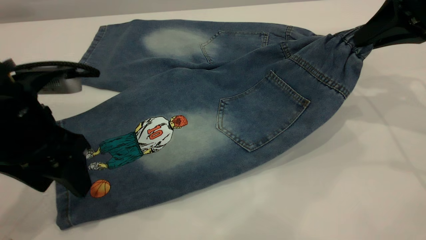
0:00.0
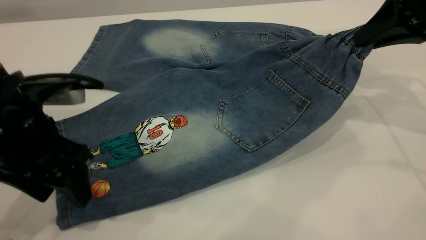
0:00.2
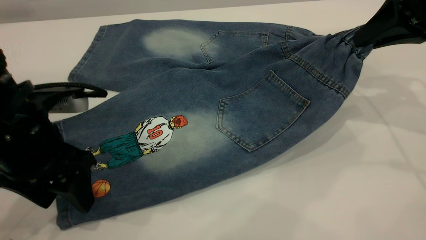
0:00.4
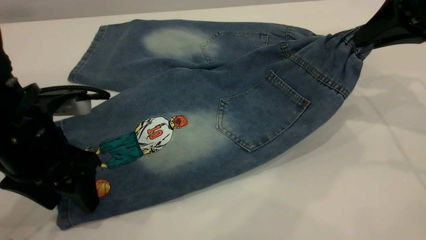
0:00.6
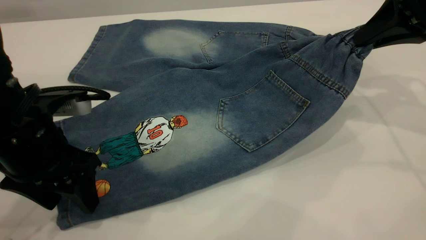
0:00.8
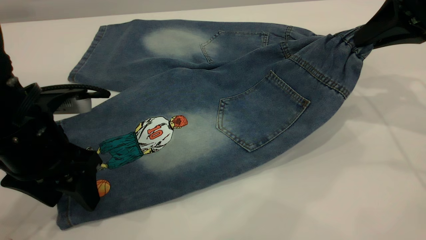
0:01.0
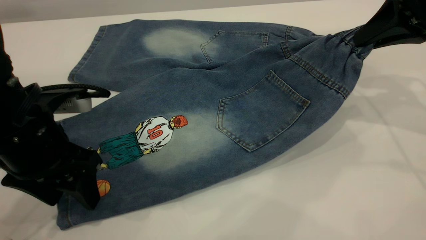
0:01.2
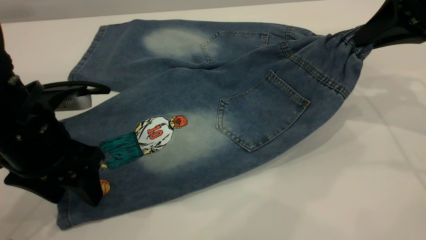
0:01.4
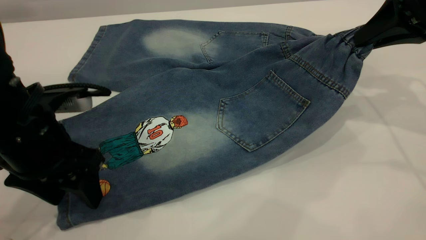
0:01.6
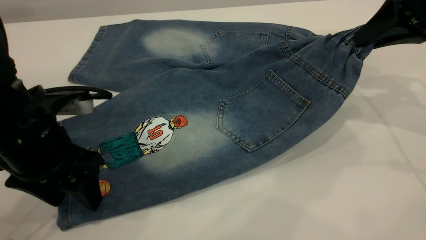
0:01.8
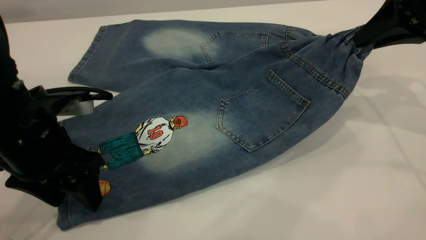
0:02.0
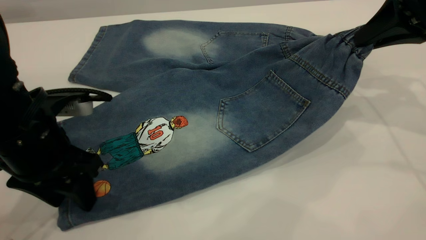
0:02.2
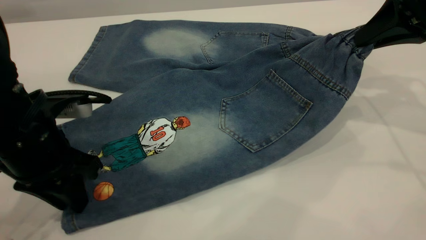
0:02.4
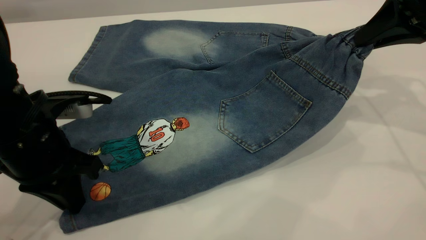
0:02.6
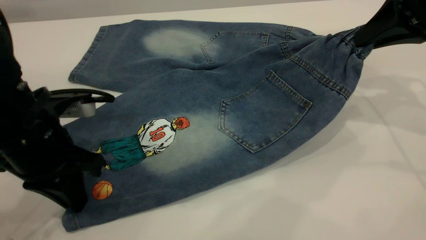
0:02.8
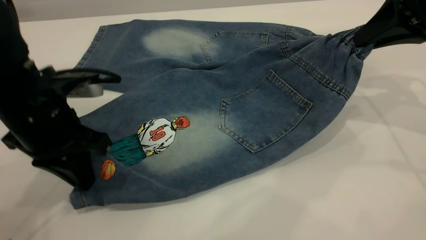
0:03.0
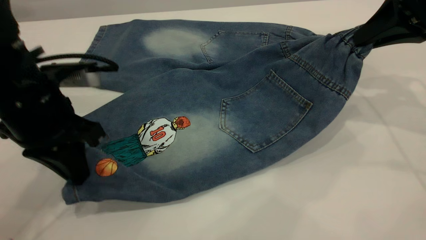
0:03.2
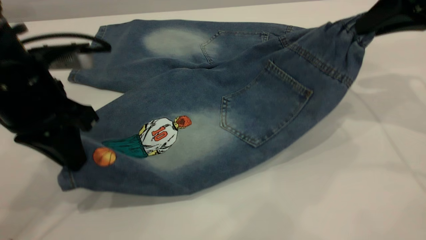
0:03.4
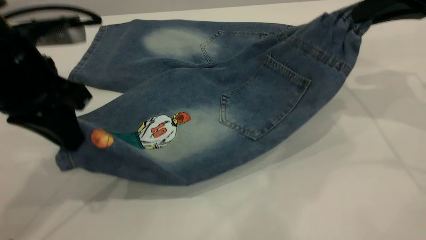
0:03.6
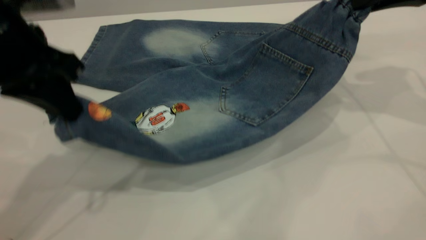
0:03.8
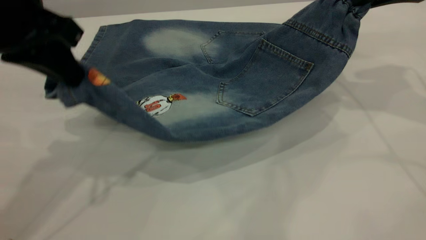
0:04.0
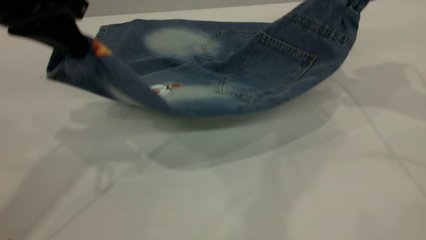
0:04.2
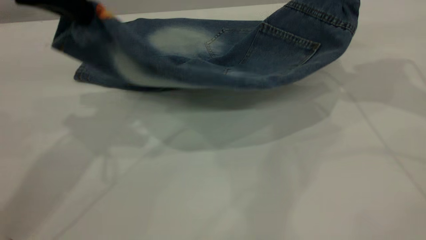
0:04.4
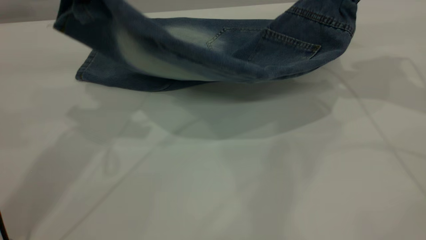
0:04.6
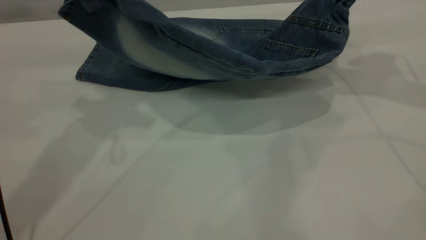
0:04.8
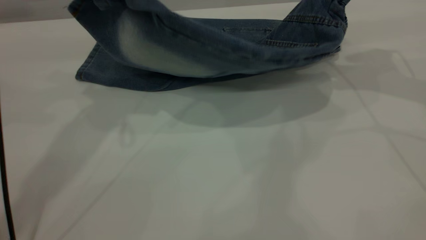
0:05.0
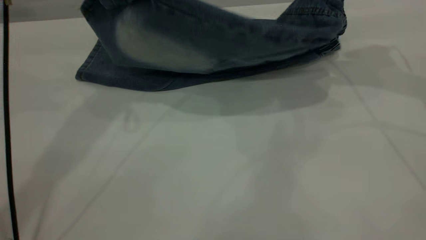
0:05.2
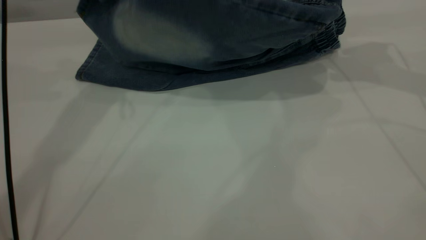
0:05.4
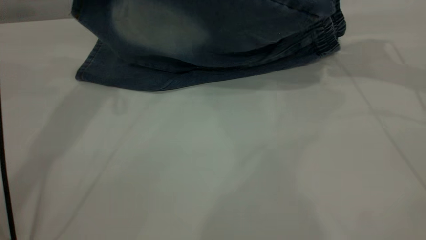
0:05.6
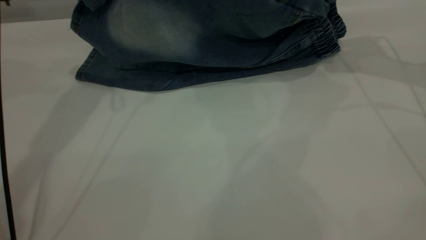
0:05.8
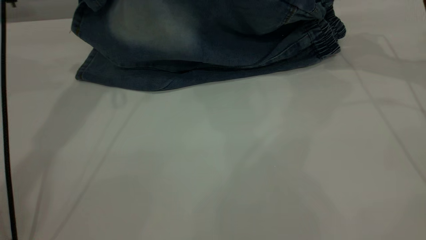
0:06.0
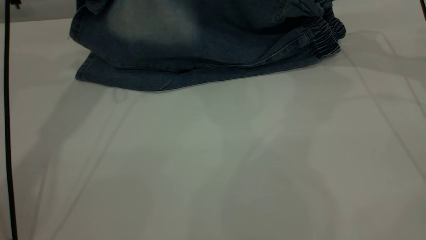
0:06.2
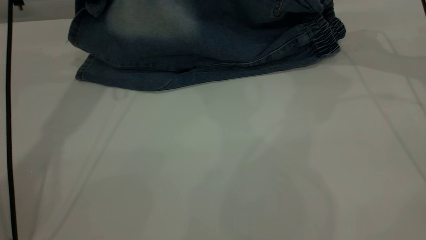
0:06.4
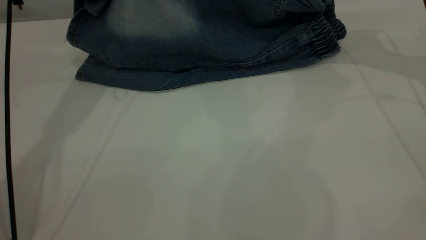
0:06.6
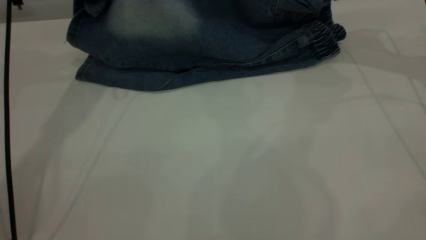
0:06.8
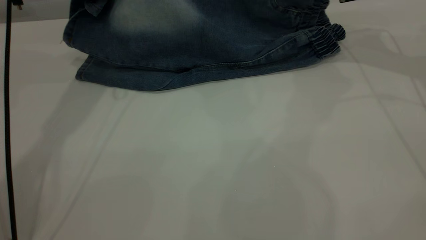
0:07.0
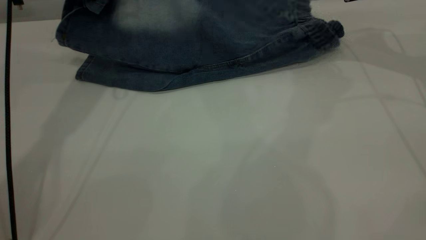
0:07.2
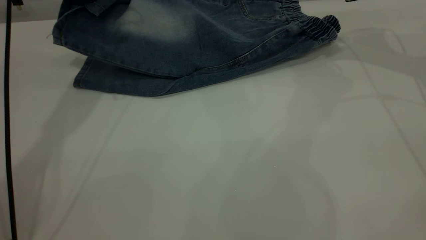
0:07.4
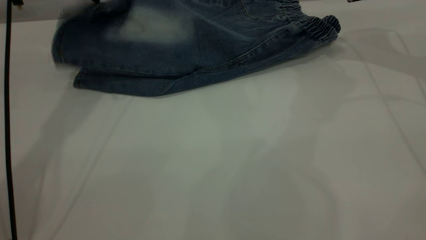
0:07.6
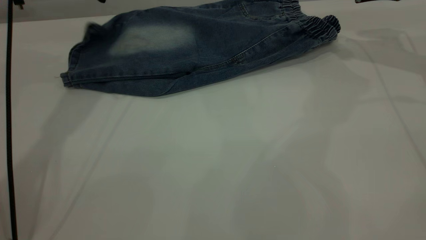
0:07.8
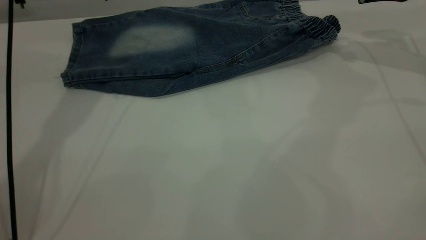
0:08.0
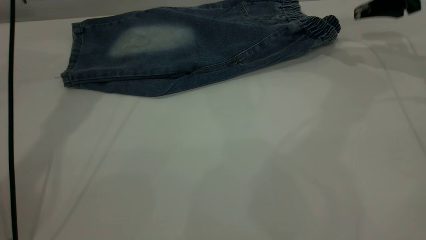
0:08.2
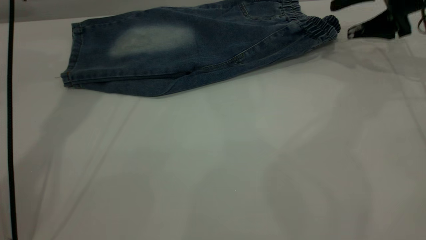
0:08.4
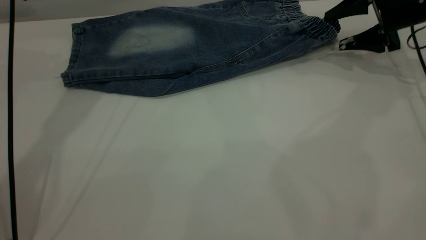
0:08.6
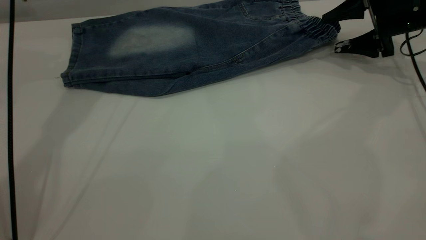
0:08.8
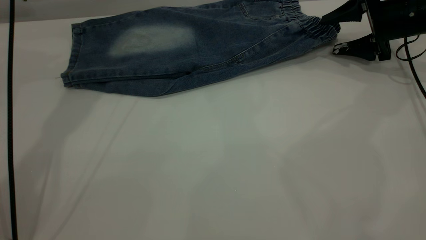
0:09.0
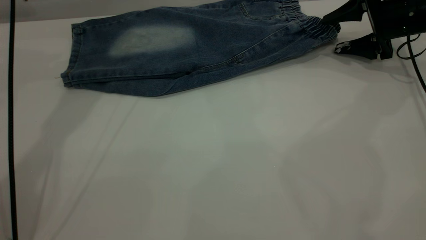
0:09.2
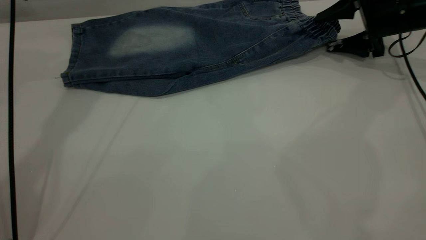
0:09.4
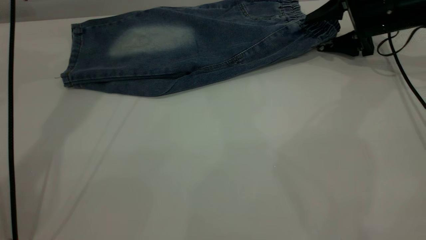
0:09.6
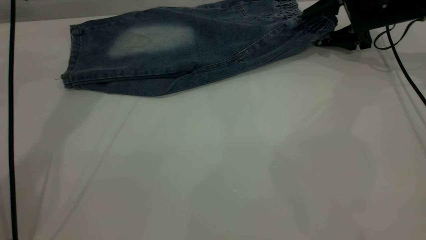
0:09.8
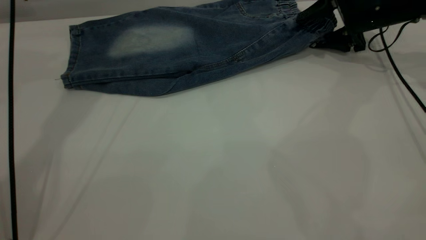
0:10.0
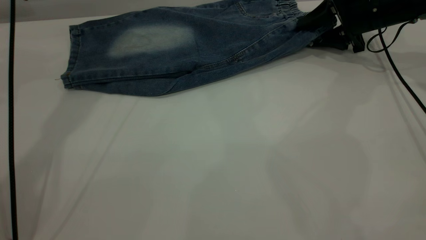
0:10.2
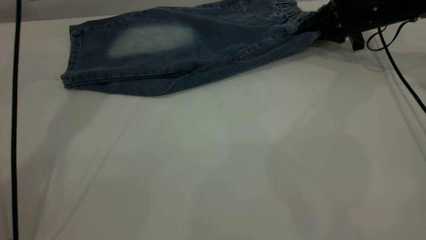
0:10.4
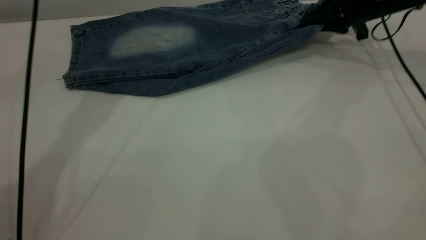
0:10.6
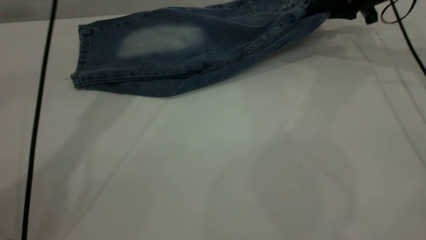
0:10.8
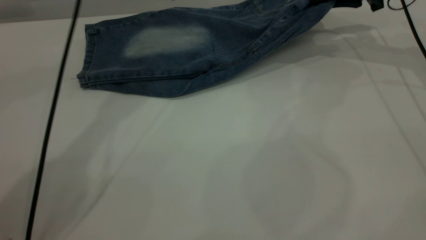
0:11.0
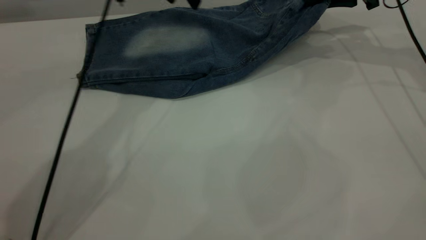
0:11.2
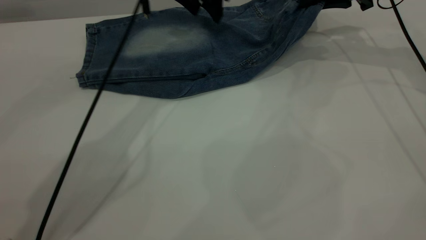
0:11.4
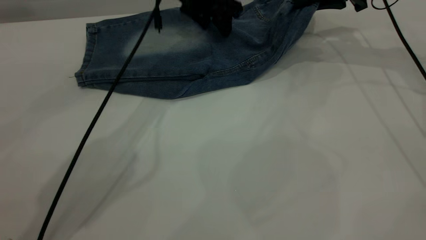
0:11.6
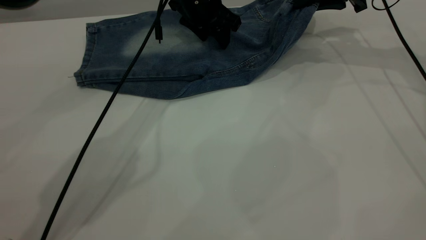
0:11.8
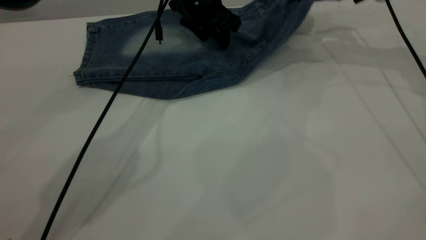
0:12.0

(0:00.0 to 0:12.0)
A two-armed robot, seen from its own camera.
Step, 0:00.0 - 0:07.8: Fold the bottom of the pants upward.
0:00.0 - 0:01.6: The grippers move only a little.
0:01.6 - 0:03.0: The left gripper closes.
0:03.0 - 0:04.4: The right gripper shifts approximately 5 cm upward. The left gripper travels upward by roughly 15 cm.
0:04.4 - 0:06.0: The right gripper heads forward and downward, covering some 10 cm. Meanwhile the left gripper travels forward by about 15 cm.
0:06.0 - 0:07.6: The right gripper opens; the left gripper opens.
0:07.6 - 0:09.0: The left gripper opens its fingers; the right gripper is displaced downward by roughly 10 cm.
0:09.0 - 0:10.4: The right gripper shifts by some 5 cm, and closes up.
0:10.4 - 0:12.0: The right gripper goes about 10 cm upward, while the left gripper is displaced to the right and downward by about 20 cm.

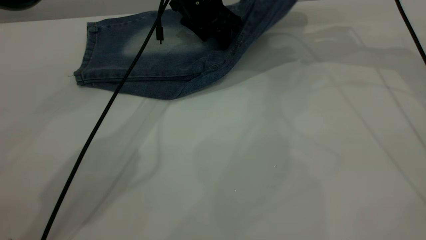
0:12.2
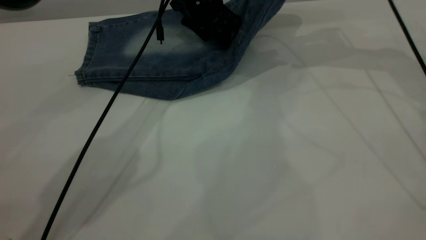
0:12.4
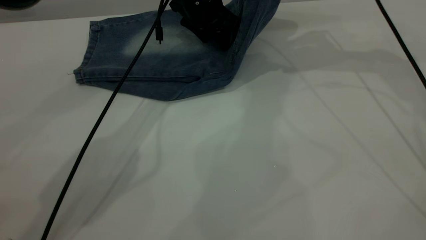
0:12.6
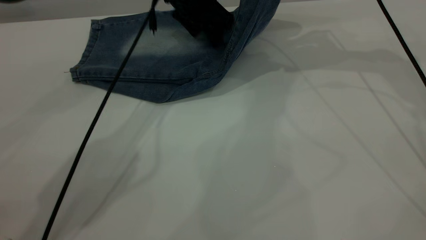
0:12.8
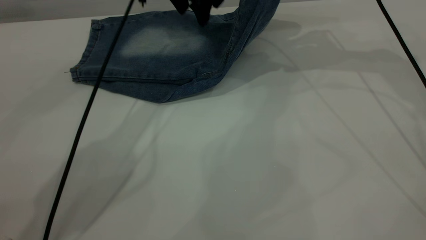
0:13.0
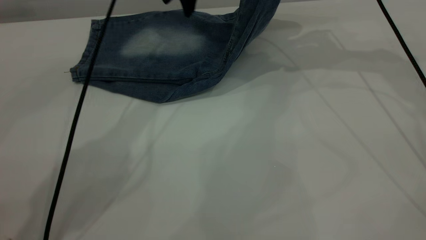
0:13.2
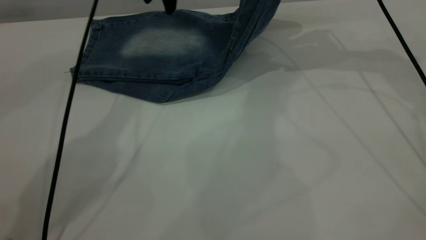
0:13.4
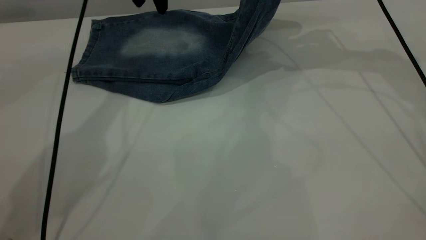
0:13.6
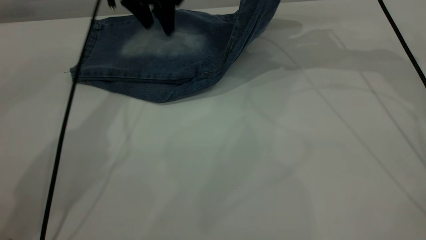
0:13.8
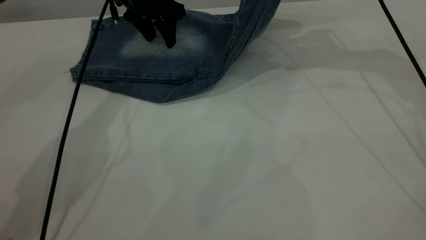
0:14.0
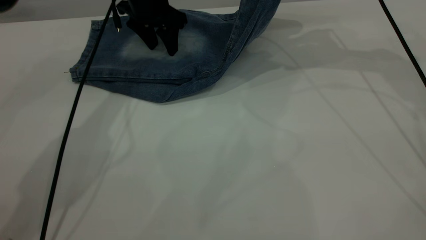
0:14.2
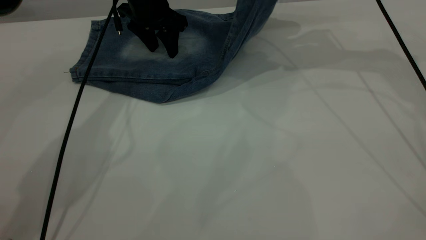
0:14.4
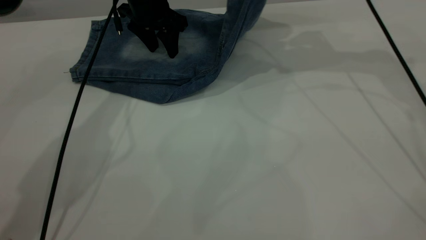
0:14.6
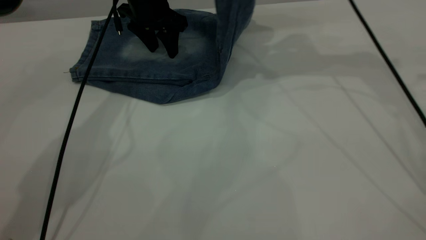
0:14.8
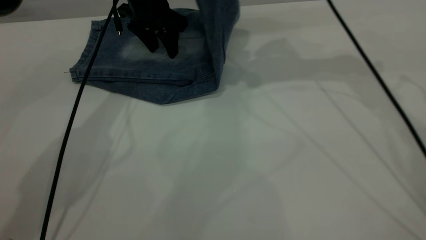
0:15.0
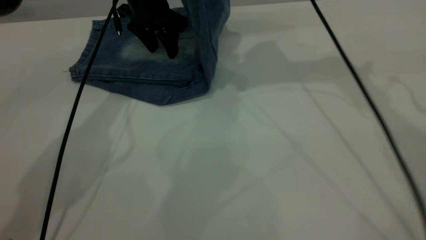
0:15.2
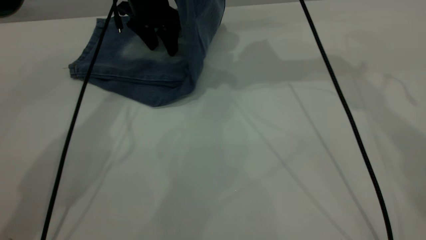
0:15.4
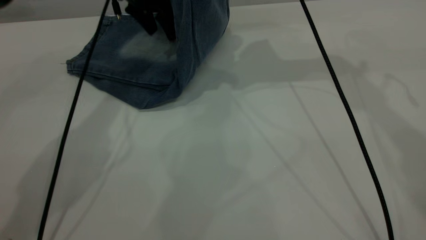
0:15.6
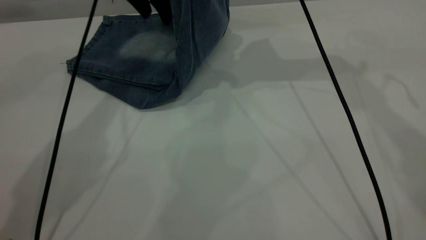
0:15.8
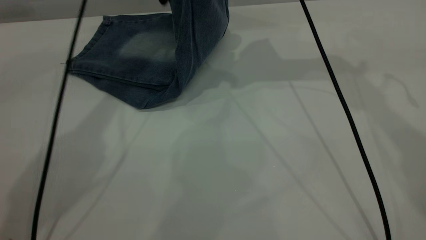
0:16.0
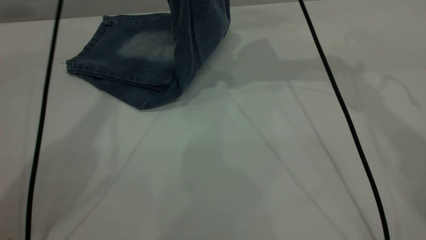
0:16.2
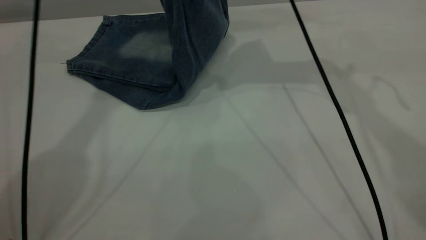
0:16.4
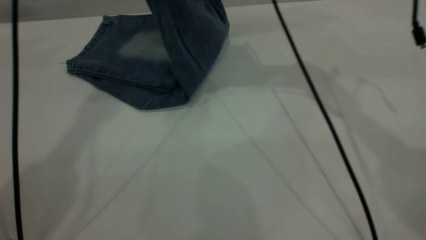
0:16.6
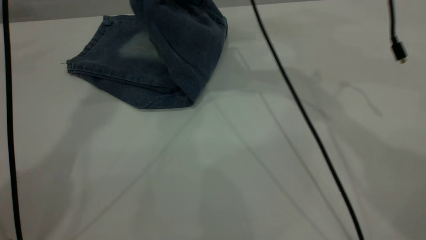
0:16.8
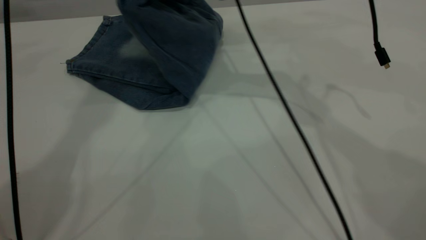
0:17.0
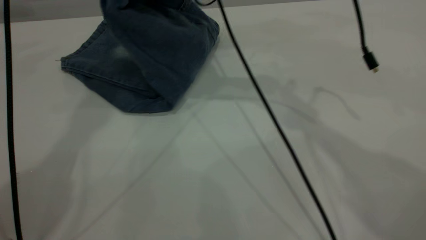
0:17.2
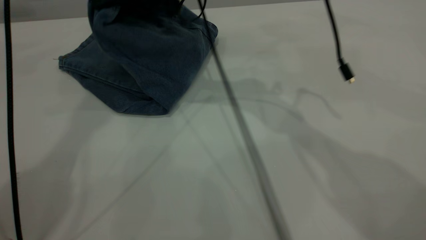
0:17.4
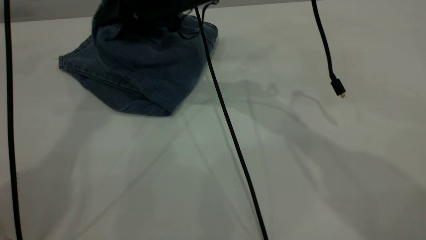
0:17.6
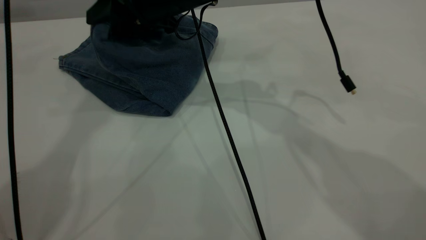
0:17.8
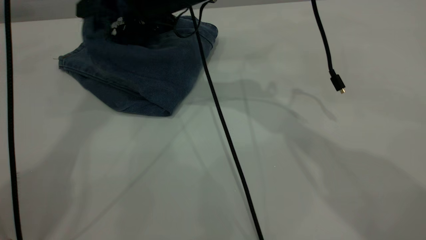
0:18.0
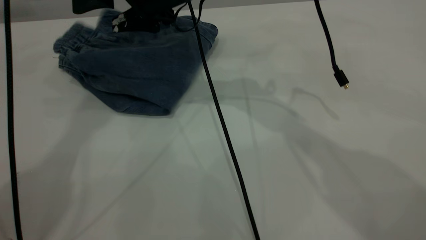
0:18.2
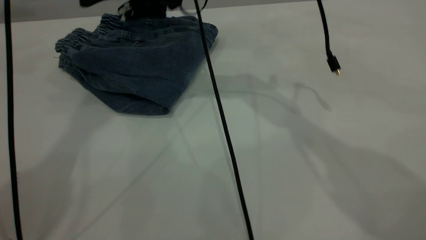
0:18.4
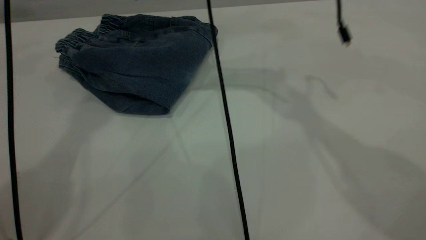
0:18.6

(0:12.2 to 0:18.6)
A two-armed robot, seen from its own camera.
Step, 0:12.2 - 0:18.6: Fold your pants from right to left.
0:12.2 - 0:13.8: The left gripper shifts some 10 cm to the left.
0:13.8 - 0:15.4: The right gripper is displaced to the left by approximately 10 cm.
0:15.4 - 0:17.0: The left gripper shifts roughly 30 cm upward, while the right gripper heads to the left, covering roughly 10 cm.
0:17.0 - 0:18.6: The right gripper goes downward and returns, about 5 cm each way, and opens up.
